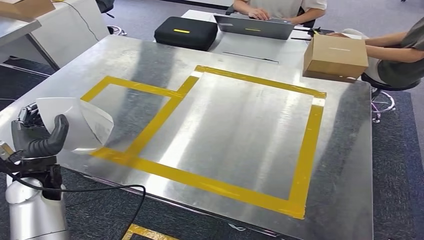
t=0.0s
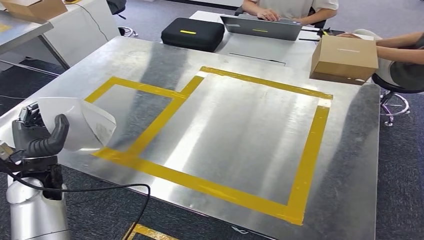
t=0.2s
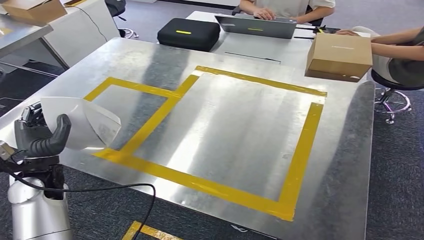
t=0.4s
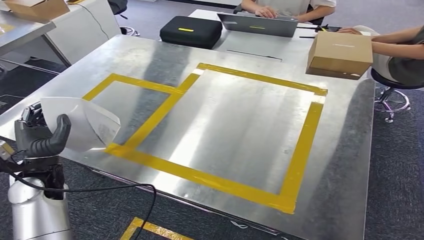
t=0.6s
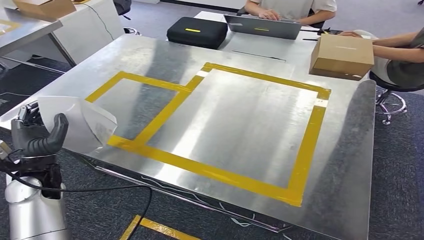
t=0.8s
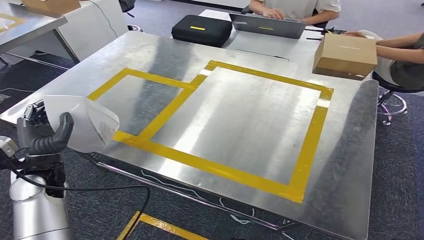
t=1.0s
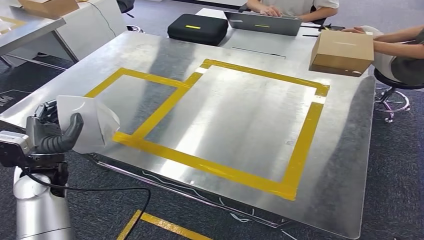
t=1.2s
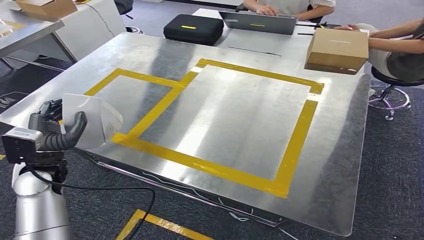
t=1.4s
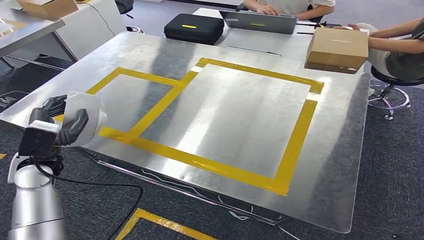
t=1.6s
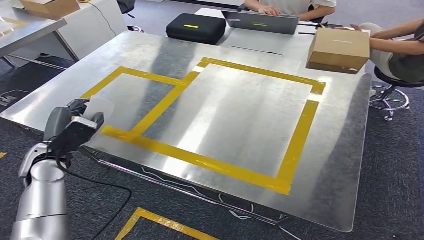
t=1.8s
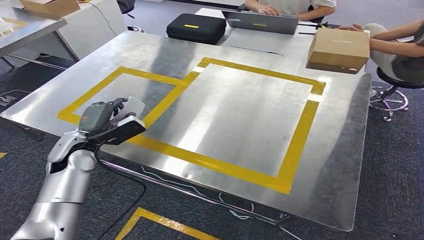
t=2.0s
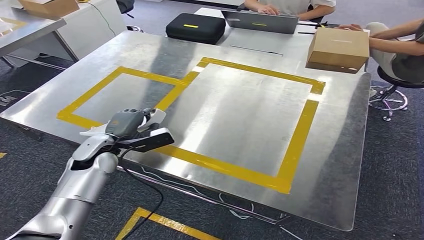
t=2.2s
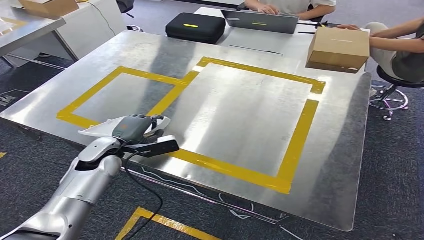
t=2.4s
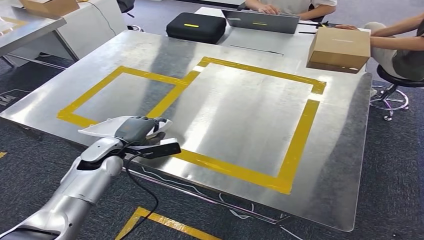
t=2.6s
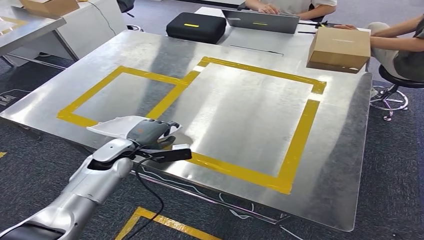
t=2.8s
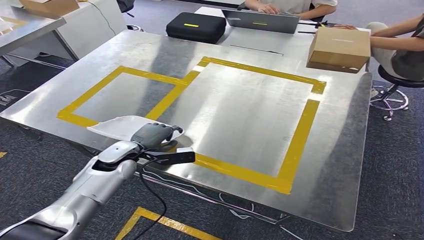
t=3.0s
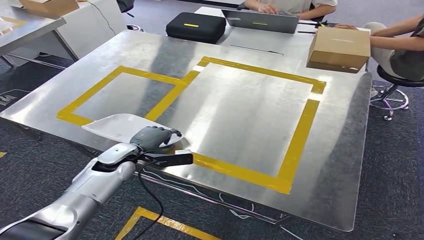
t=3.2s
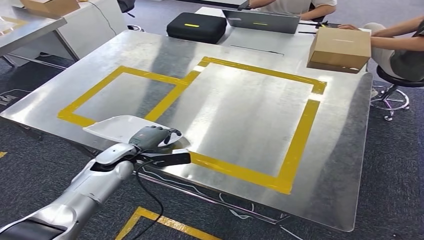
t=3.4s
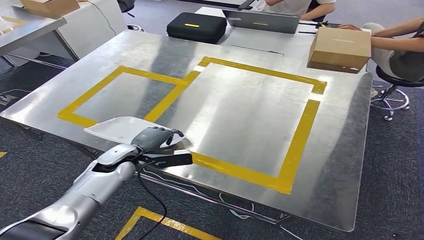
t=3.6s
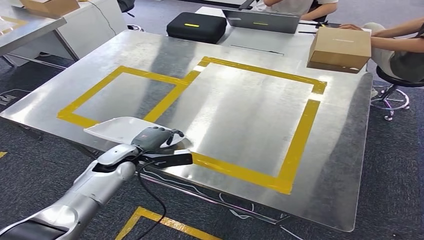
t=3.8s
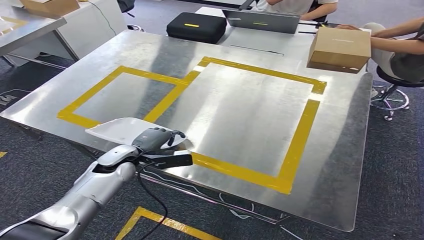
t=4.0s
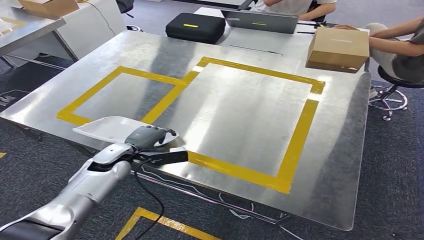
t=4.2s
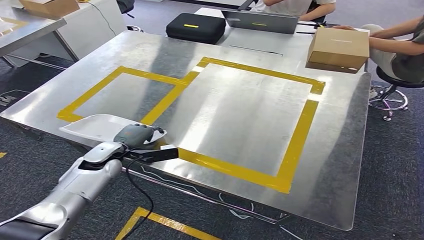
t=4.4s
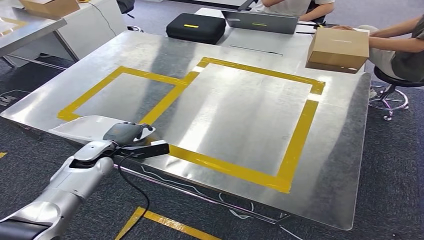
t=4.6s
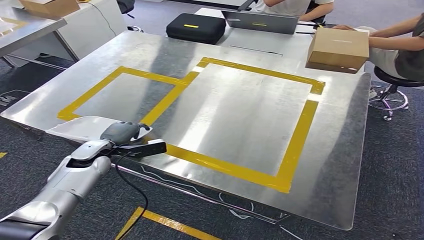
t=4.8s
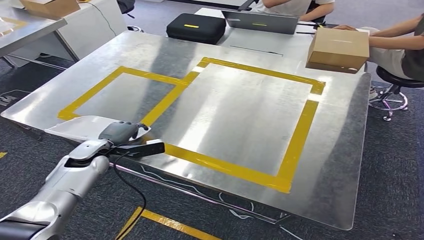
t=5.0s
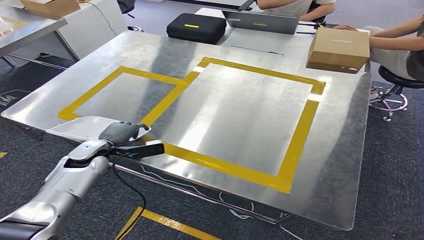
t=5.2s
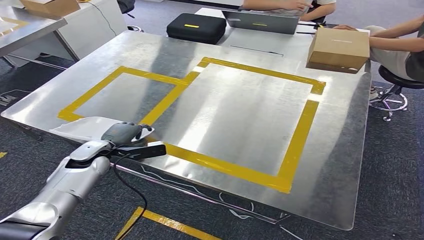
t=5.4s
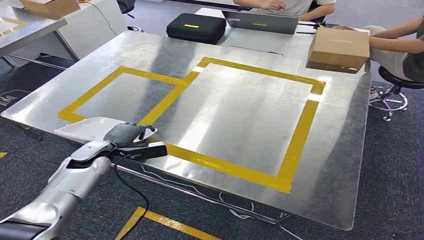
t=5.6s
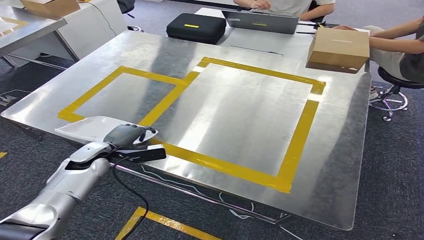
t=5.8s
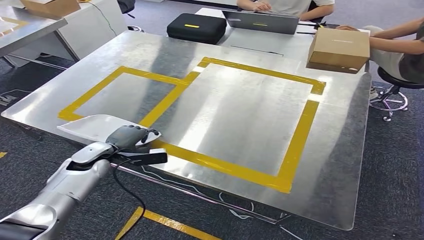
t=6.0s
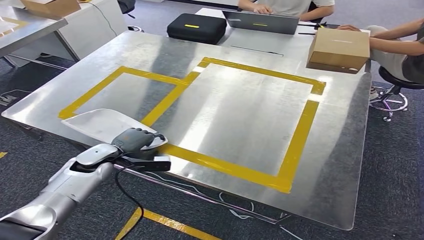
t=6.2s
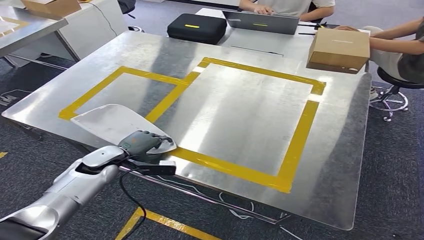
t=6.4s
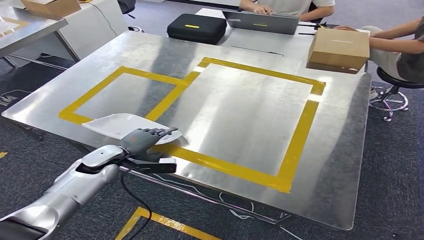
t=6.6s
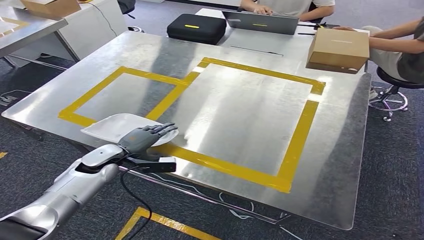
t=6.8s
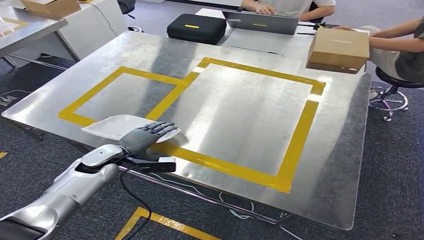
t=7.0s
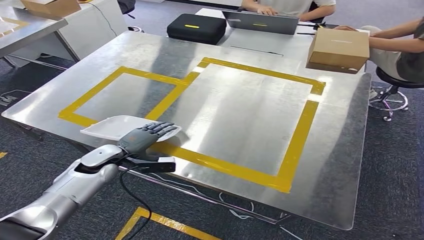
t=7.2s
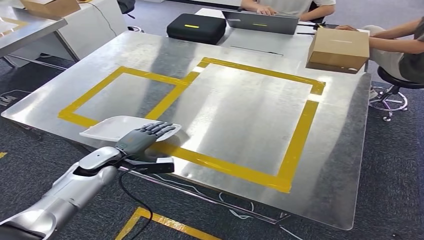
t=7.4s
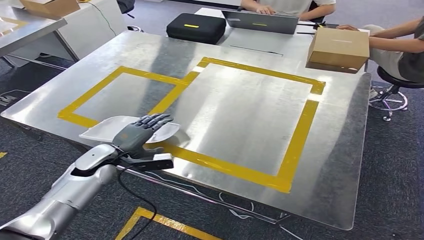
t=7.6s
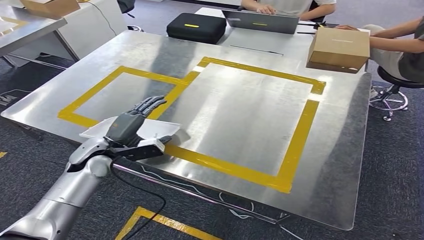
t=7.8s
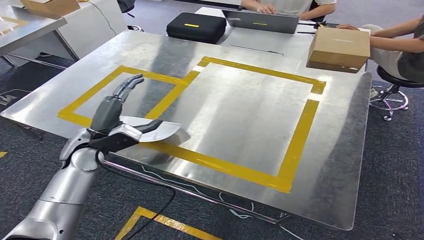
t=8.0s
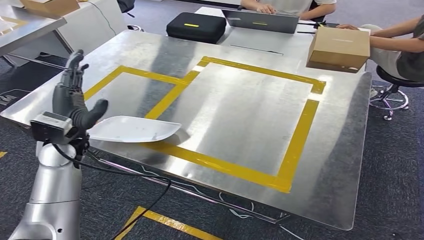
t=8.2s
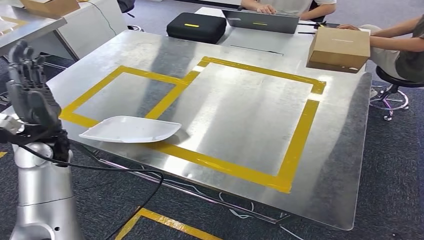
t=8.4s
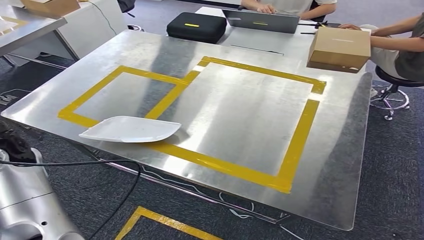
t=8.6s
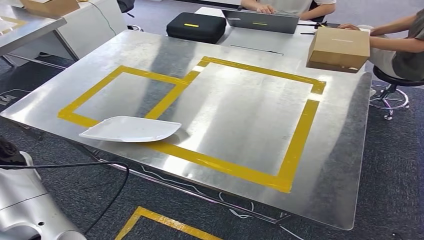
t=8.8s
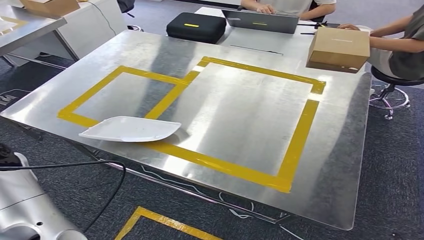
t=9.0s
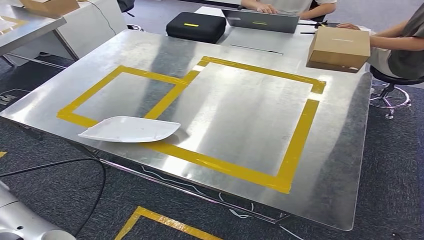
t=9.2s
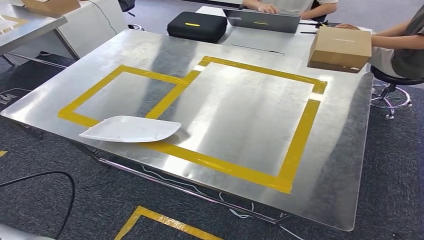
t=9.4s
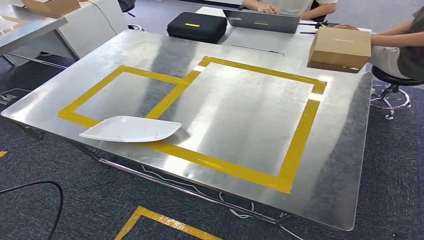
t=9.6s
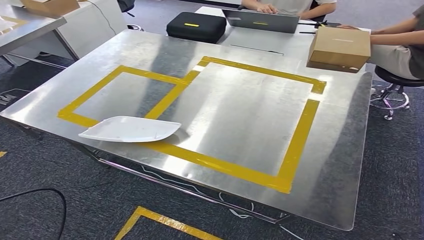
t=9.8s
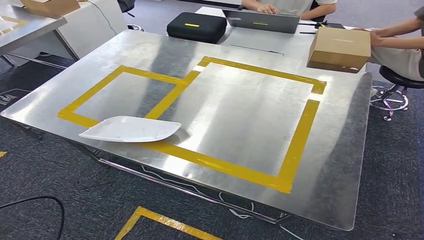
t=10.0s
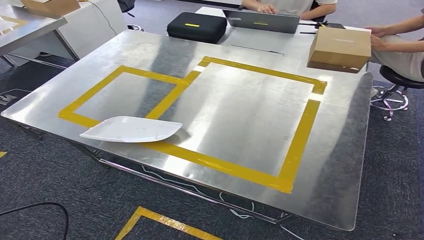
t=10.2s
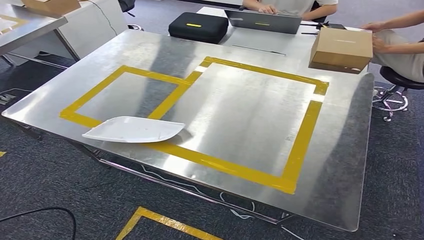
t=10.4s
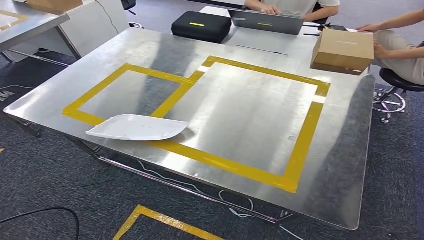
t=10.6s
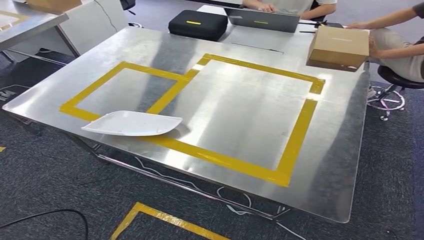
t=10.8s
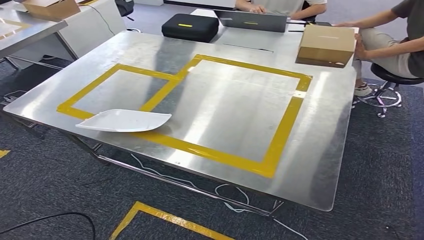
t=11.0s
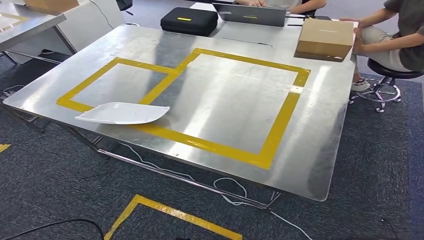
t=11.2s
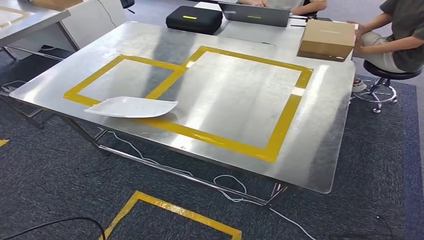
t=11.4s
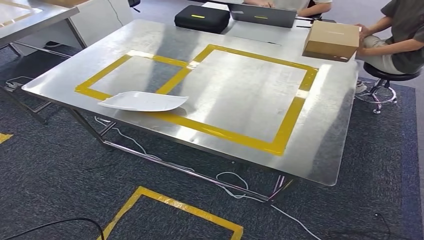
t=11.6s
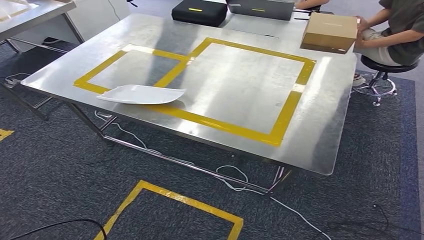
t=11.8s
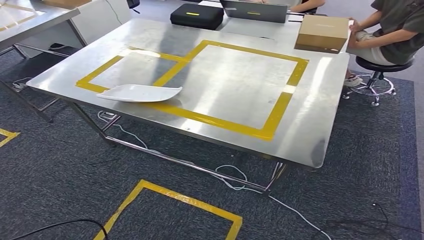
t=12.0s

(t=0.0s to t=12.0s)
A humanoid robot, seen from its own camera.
Step, t=0.0s - t=10.2s: Insert the small parts into the corresponding holes on the workbench.
t=3.0s - t=4.4s: The hands make only small movements.
t=4.4s - t=6.0s: The hands stay close to where they were, moving slightly.
t=6.0s - t=7.6s: The hands move only a little.
t=7.6s - t=9.0s: The left hand goes some 20 cm to the left, upward and backward.
t=9.0s - t=10.4s: The left hand travels backward, downward and to the left by some 25 cm.

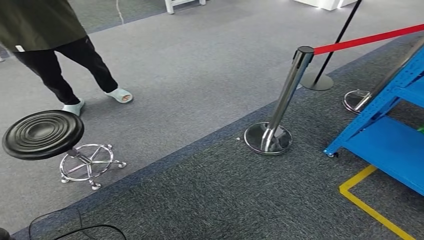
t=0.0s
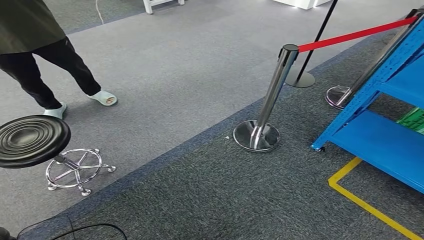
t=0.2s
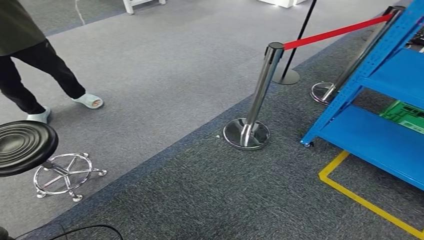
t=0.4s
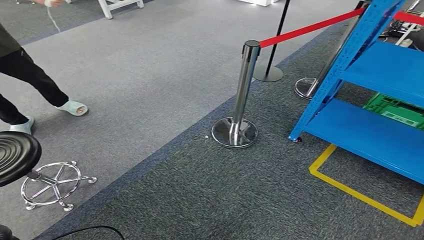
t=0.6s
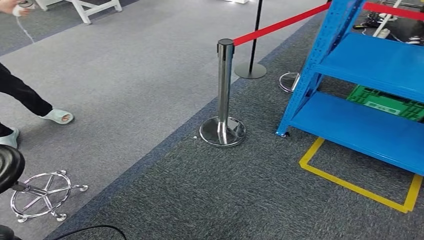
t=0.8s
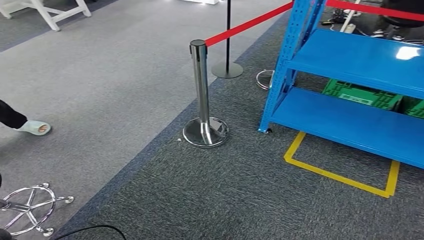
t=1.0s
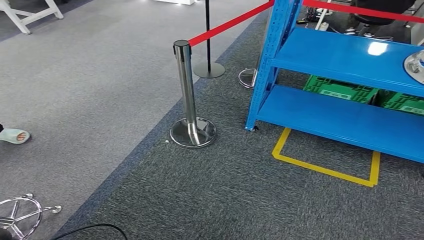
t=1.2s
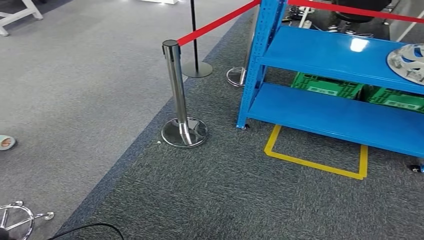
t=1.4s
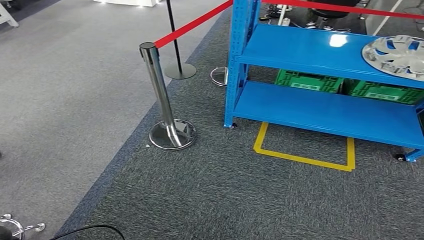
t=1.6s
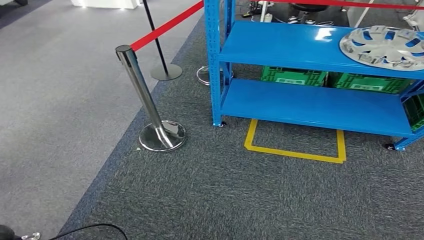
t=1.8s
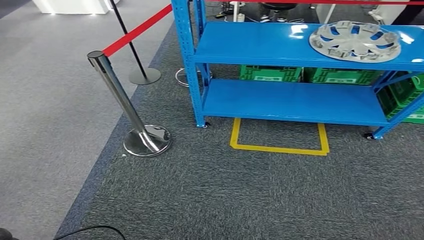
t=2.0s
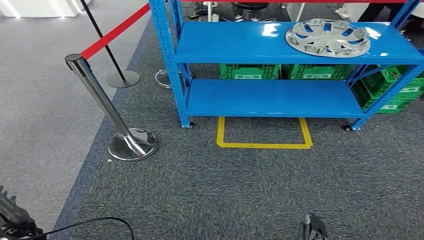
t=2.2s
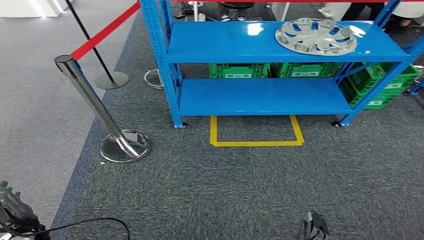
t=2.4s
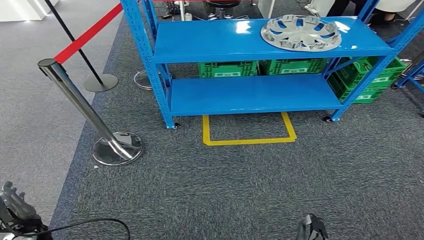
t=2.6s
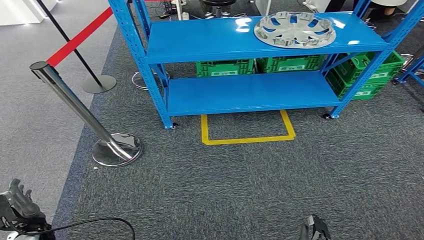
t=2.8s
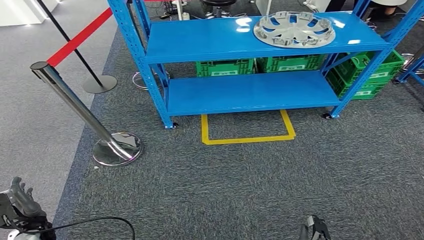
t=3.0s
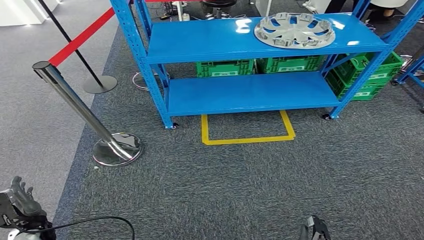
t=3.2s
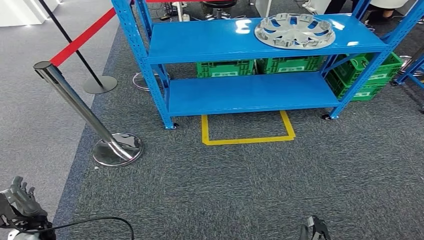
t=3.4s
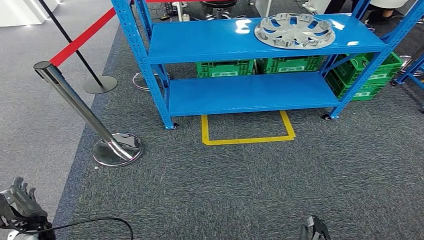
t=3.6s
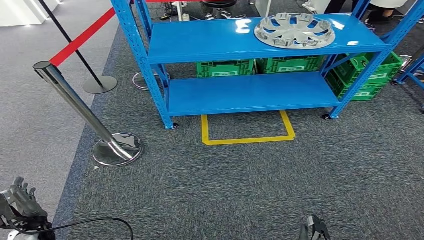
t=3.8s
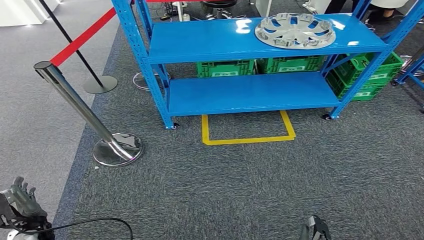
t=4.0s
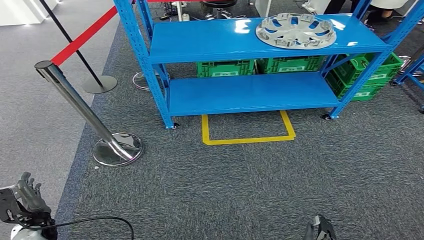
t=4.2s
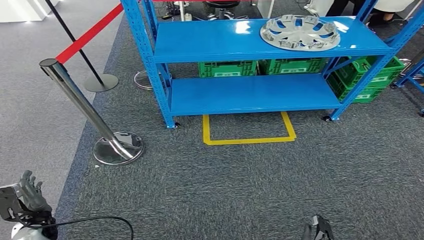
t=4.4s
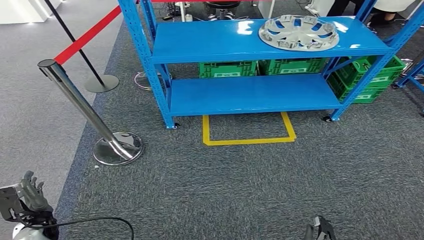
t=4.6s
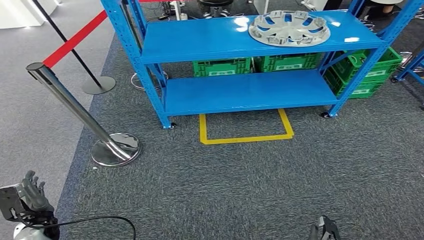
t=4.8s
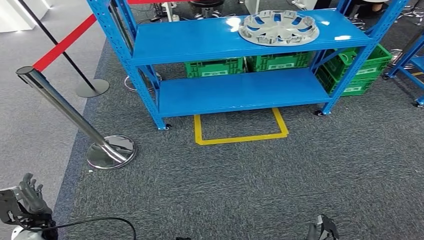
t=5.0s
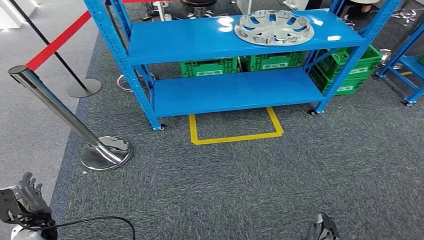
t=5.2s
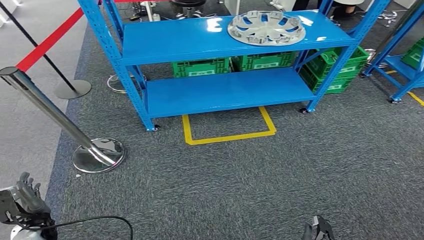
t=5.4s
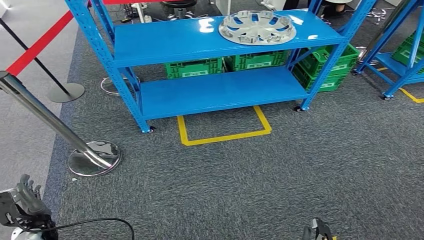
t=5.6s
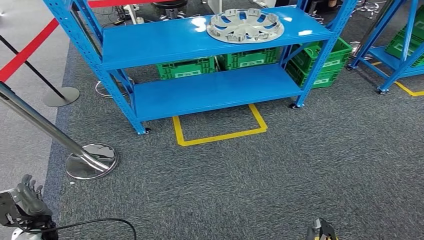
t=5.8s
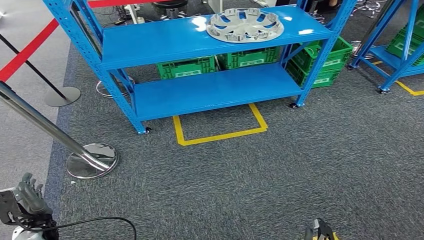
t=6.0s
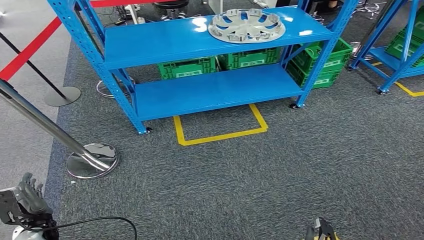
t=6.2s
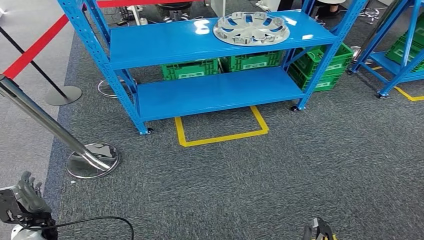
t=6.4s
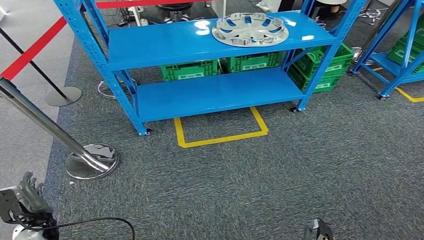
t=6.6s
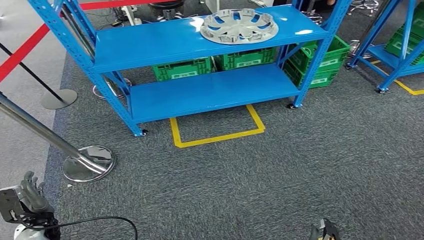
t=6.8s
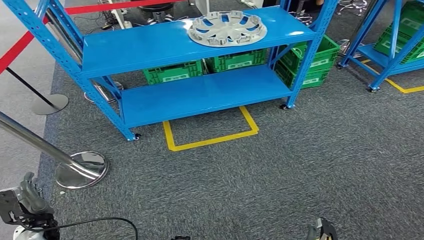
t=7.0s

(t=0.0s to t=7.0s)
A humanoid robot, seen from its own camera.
t=2.8s - t=4.2s: The hands move only a little.
